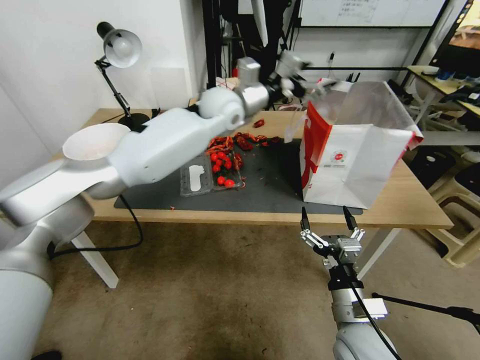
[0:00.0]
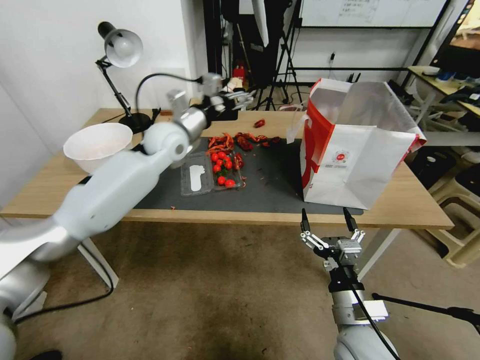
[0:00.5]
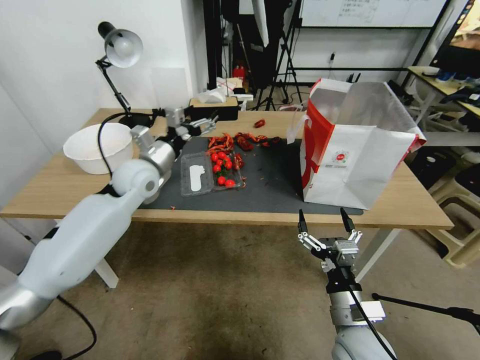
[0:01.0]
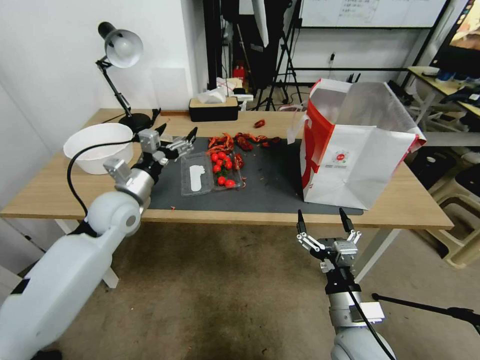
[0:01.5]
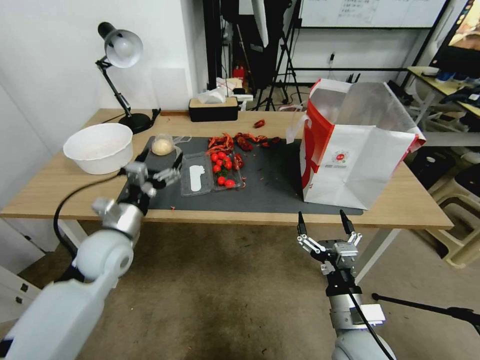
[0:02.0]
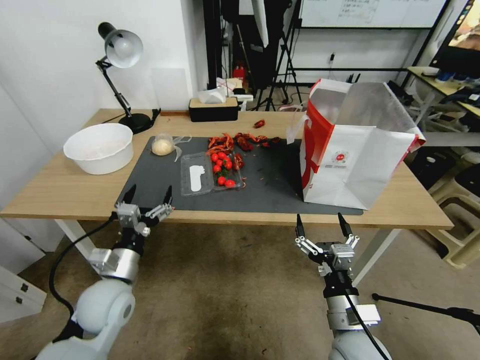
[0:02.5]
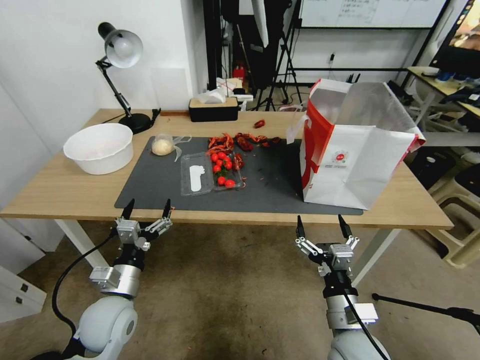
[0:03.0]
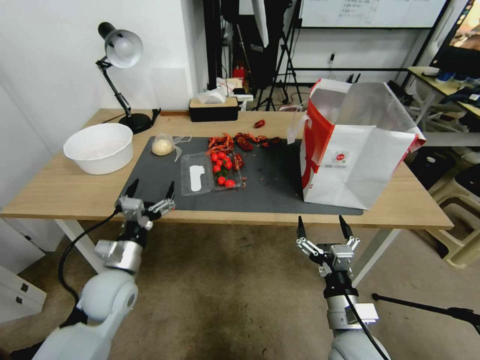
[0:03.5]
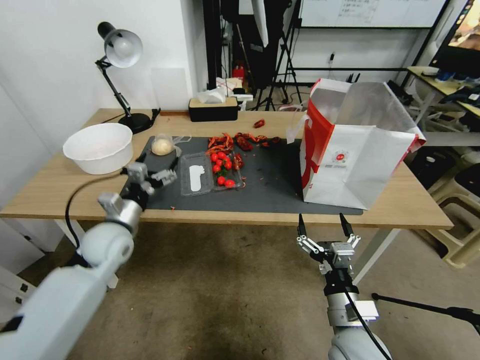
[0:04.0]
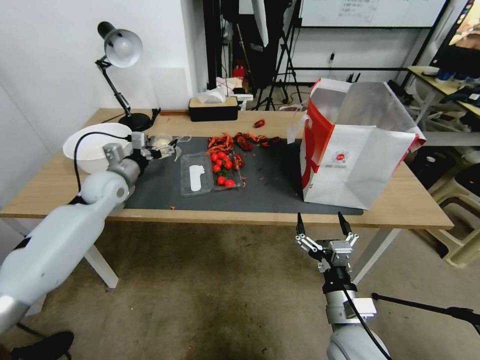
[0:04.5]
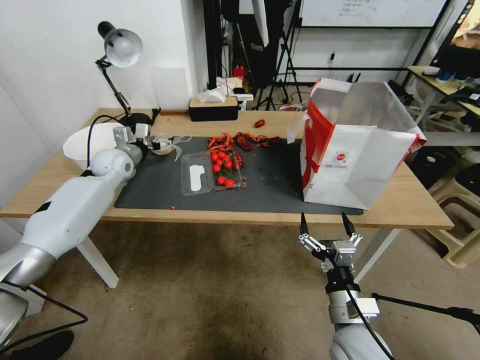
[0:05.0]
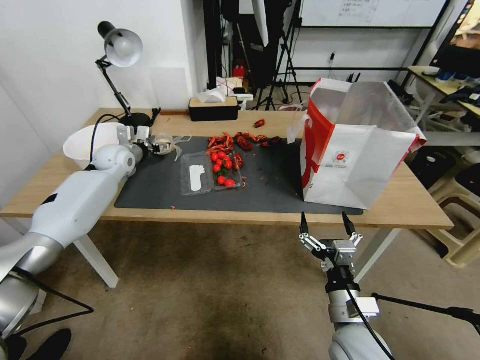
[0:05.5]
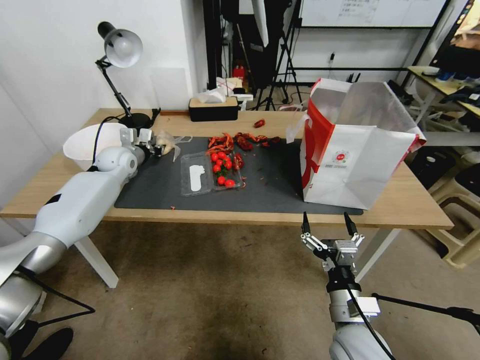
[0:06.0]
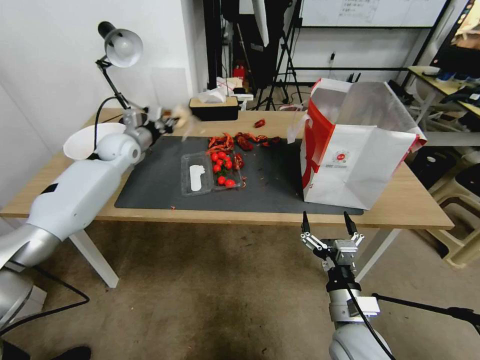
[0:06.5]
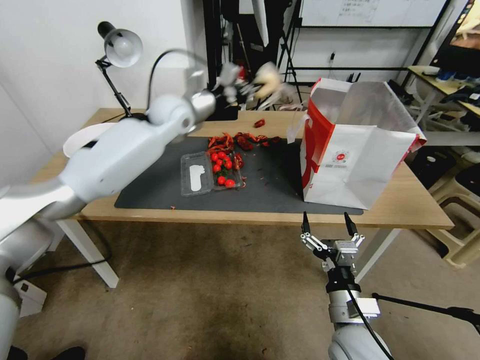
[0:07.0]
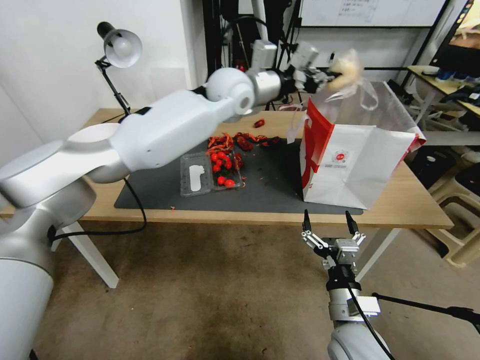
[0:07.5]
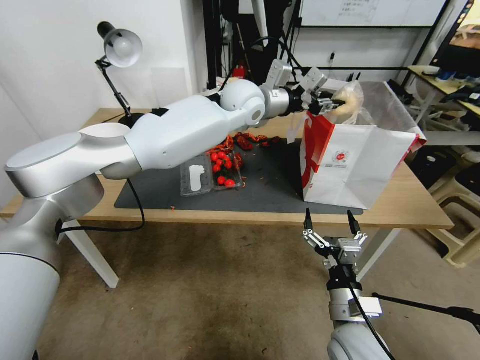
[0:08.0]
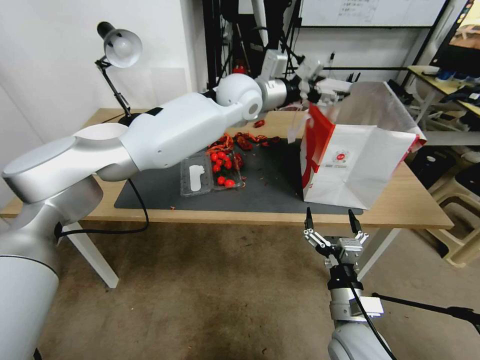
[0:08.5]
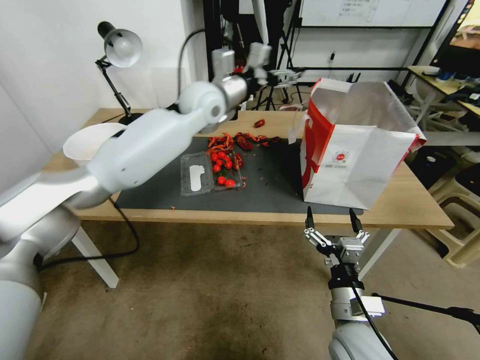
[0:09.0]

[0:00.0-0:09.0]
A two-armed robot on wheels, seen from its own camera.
0:00.0 to 0:02.0: The left gripper moves to the left, backward and downward, about 35 cm.
0:02.0 to 0:04.5: The left gripper moves forward and to the left, some 15 cm.
0:04.5 to 0:07.0: The left gripper is displaced to the right, upward and forward by approximately 25 cm, and closes its fingers.
0:07.0 to 0:09.0: The left gripper is displaced to the right by some 5 cm, and opens.

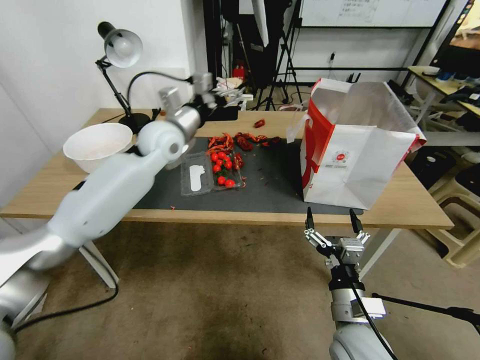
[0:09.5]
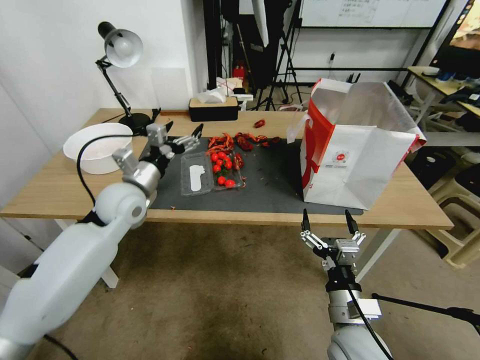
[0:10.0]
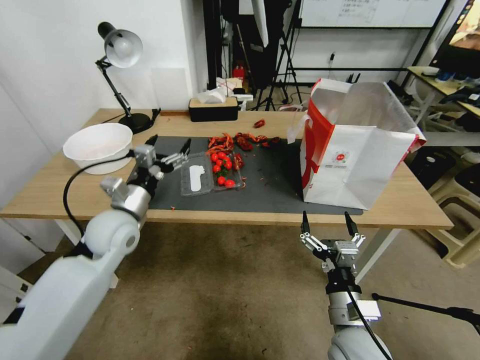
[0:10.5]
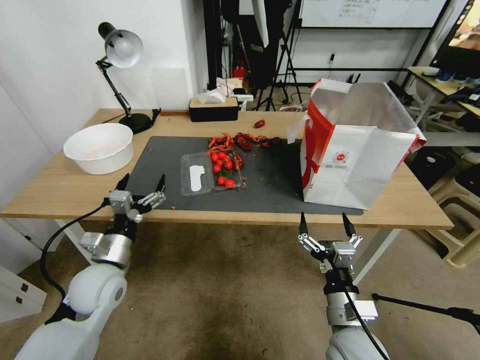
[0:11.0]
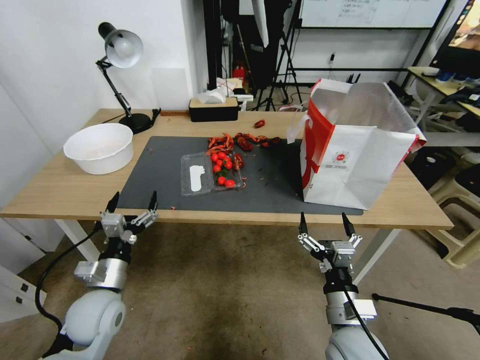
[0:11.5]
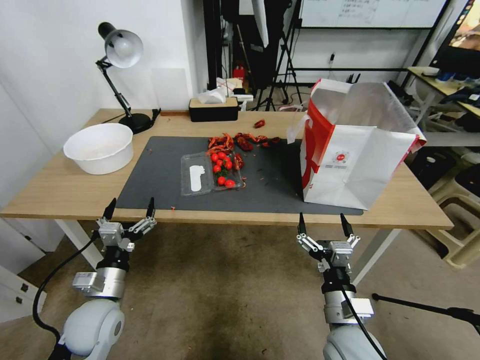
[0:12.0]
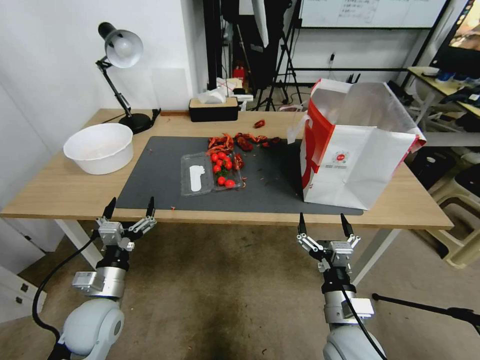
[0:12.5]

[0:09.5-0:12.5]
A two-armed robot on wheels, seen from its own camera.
0:09.5 to 0:11.0: The left gripper shifts roughly 35 cm backward, downward and to the left.
0:11.0 to 0:12.5: The left gripper shifts roughly 5 cm backward.

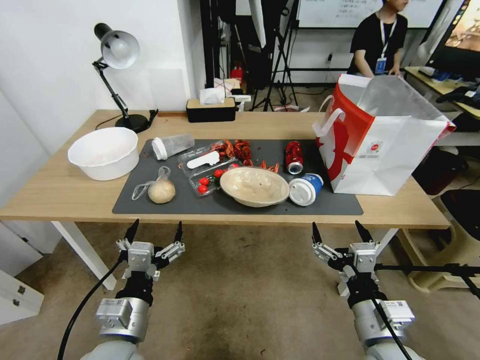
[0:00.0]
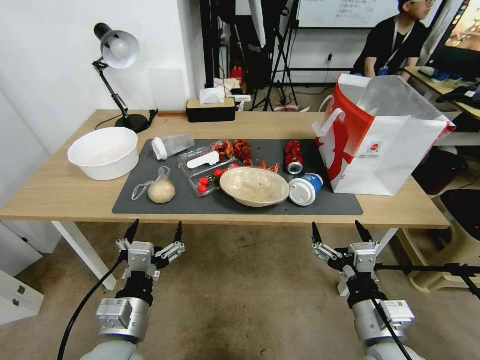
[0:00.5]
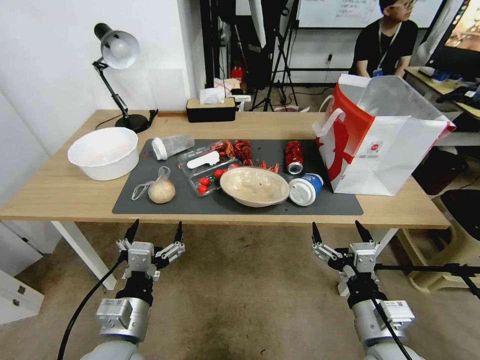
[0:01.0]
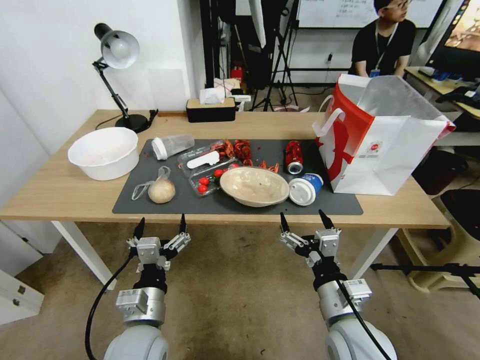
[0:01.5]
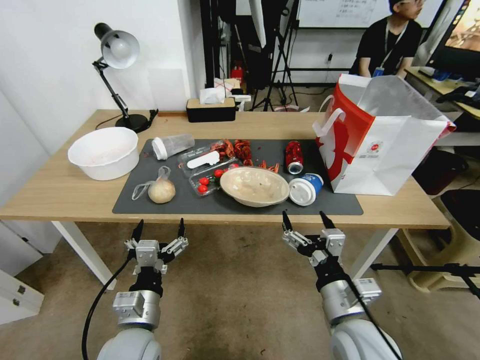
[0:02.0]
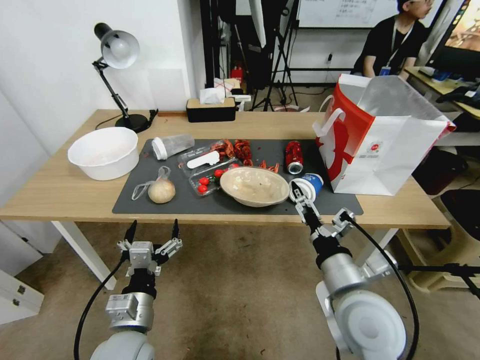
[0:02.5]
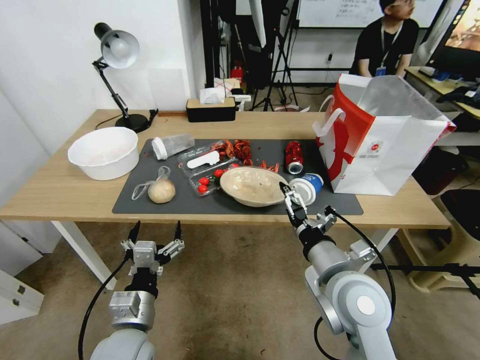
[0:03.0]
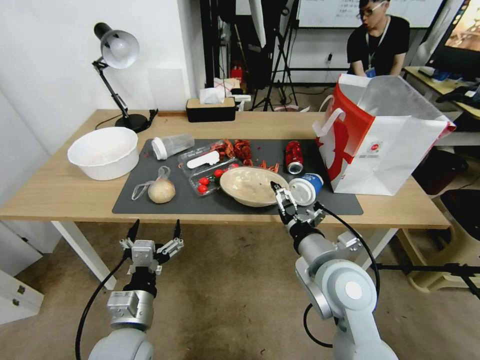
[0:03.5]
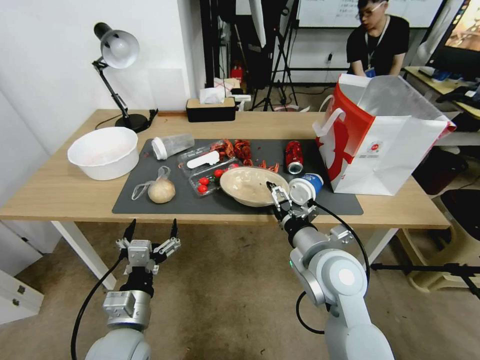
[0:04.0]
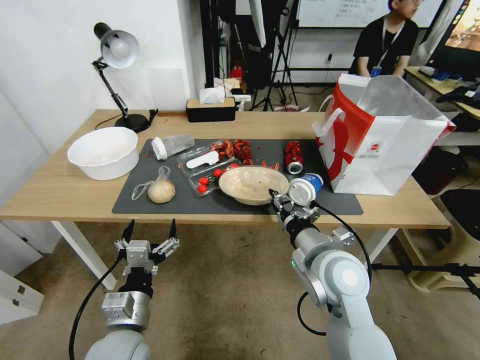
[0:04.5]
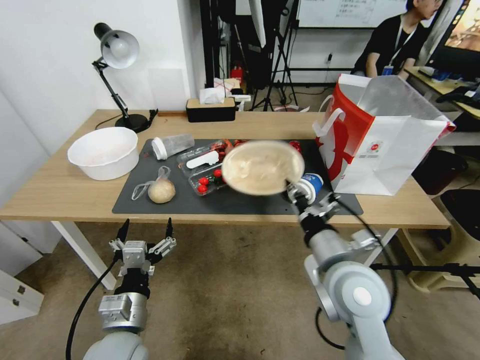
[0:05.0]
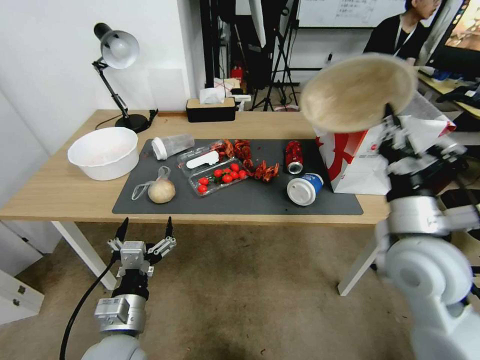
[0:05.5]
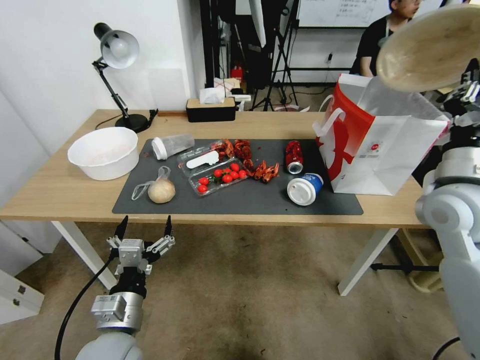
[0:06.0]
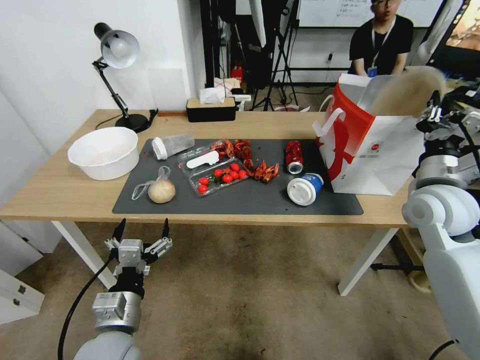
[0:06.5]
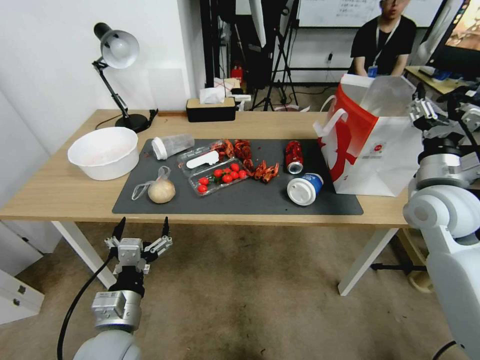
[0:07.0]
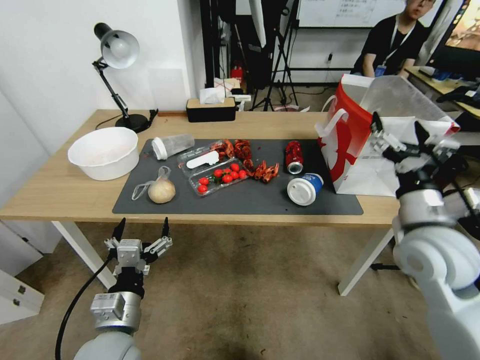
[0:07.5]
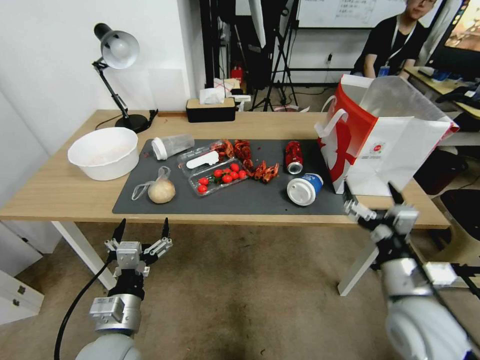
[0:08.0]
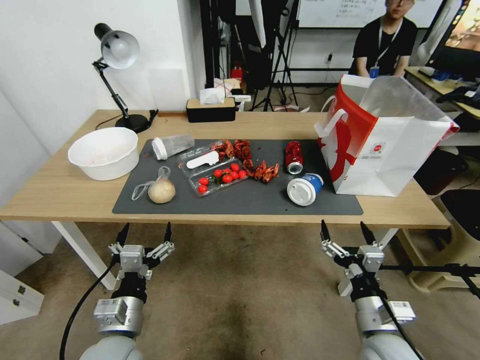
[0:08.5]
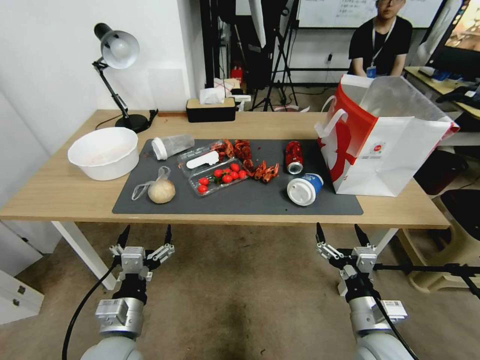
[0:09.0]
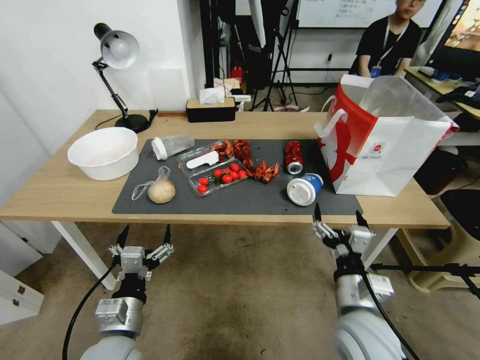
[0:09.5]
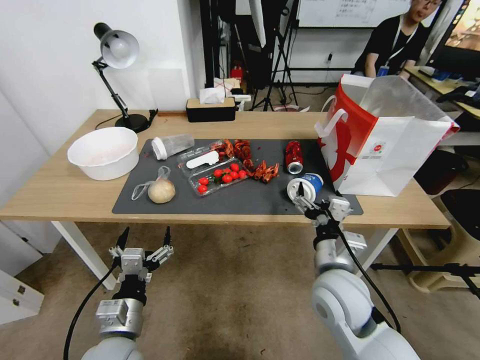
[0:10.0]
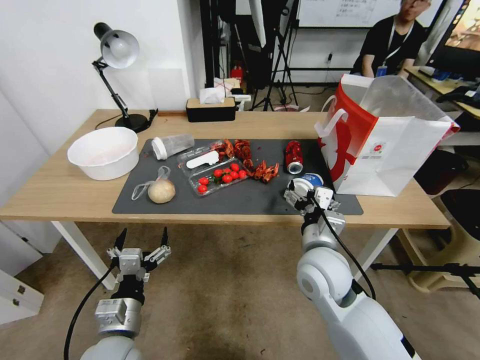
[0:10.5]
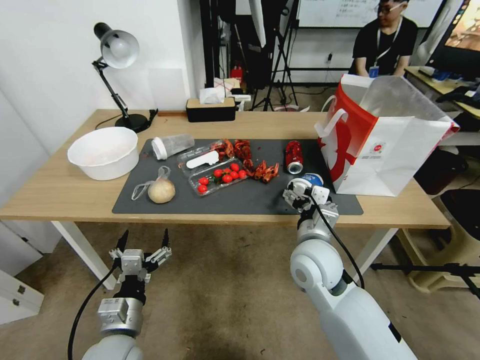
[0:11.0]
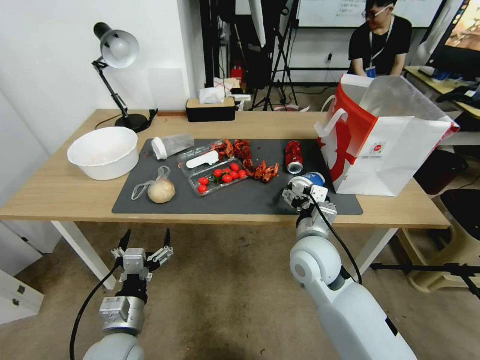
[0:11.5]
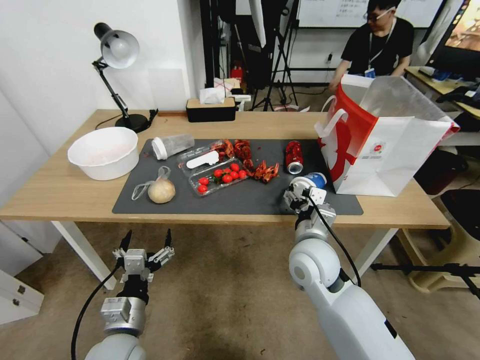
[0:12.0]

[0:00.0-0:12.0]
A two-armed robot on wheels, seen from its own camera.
0:02.0 to 0:04.0: The right gripper travels forward and upward by about 10 cm.
0:04.0 to 0:06.0: The right gripper heads to the right and upward, covering about 20 cm, and closes.
0:06.0 to 0:08.0: The right gripper travels downward and backward by some 20 cm, and opens.
0:08.0 to 0:10.0: The right gripper shifts about 10 cm to the left.
0:10.0 to 0:12.0: The right gripper travels forward by roughly 10 cm.

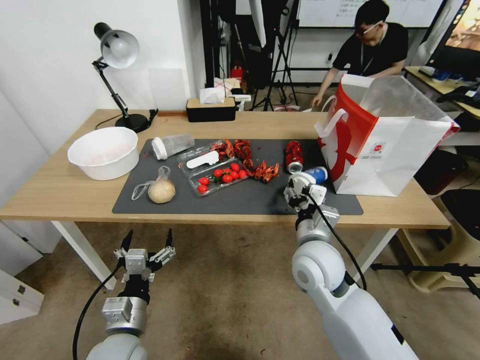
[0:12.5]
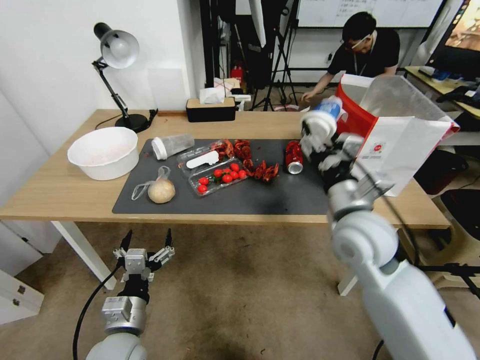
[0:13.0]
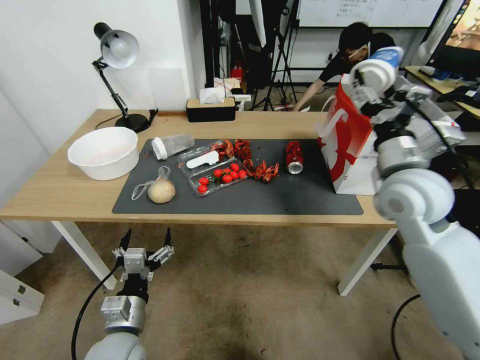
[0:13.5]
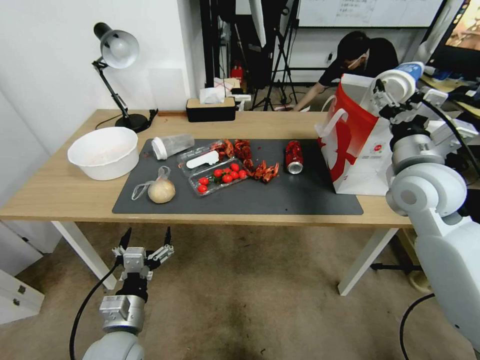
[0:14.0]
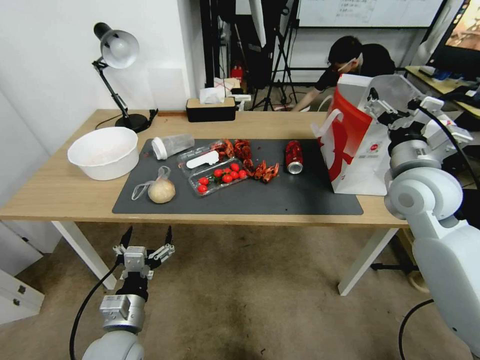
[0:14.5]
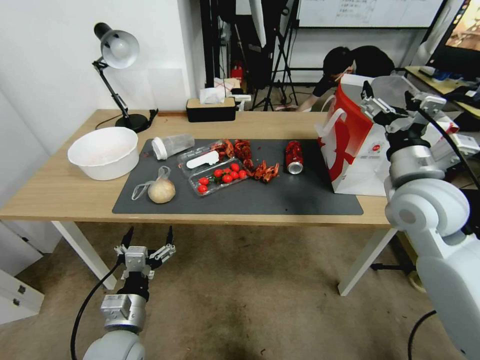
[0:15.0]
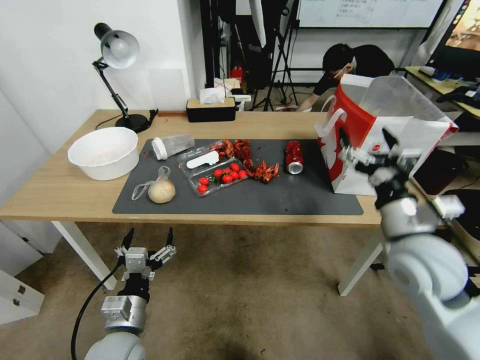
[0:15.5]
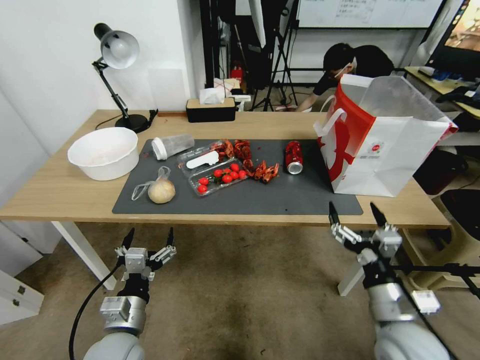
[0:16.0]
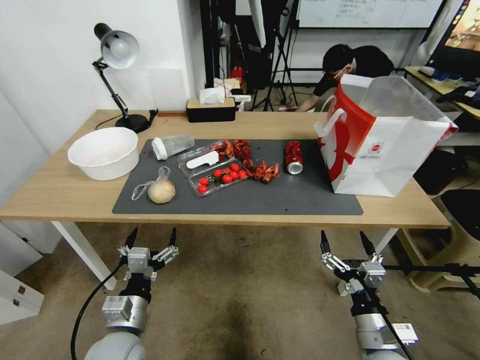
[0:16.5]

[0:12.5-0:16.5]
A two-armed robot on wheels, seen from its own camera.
0:12.5 to 0:14.5: The right gripper is displaced to the right, upward and forward by approximately 25 cm, and opens.
0:14.5 to 0:16.5: The right gripper moves downward and backward, approximately 35 cm.
